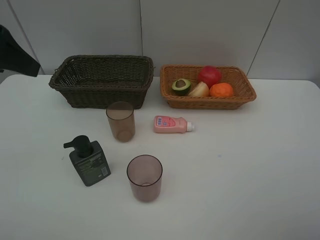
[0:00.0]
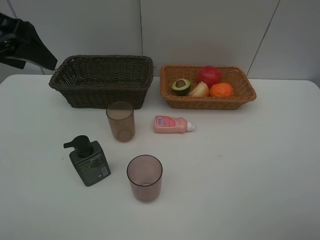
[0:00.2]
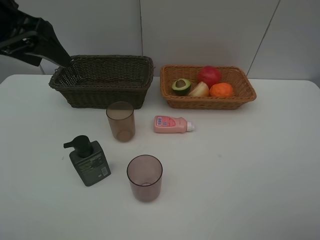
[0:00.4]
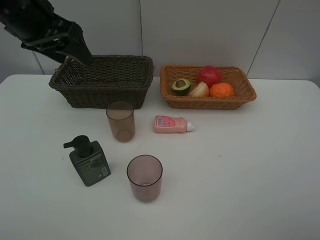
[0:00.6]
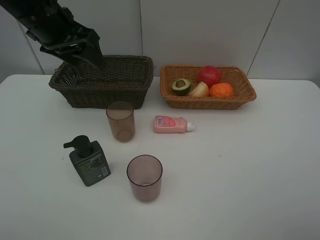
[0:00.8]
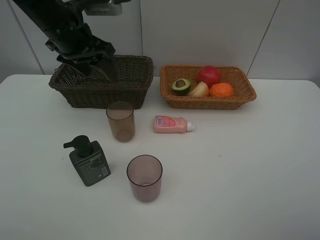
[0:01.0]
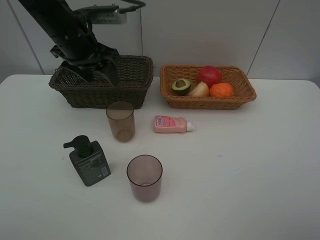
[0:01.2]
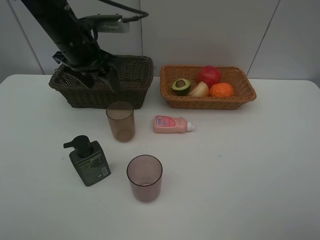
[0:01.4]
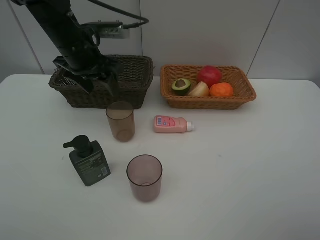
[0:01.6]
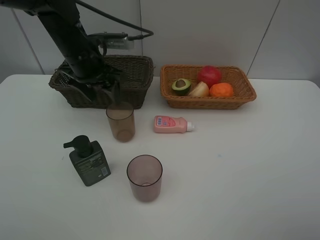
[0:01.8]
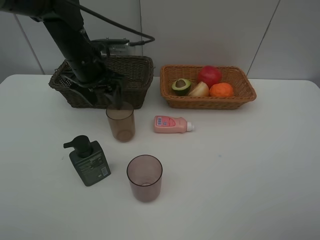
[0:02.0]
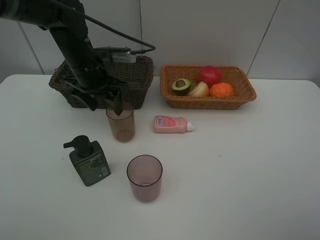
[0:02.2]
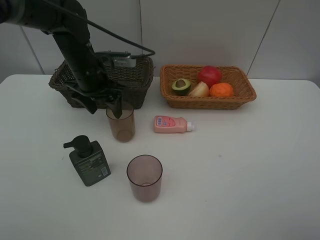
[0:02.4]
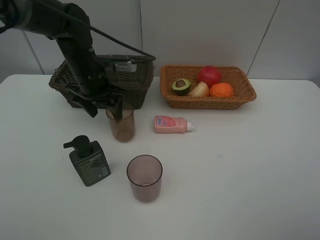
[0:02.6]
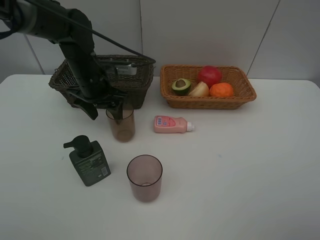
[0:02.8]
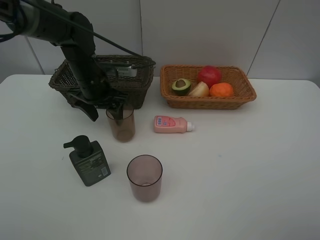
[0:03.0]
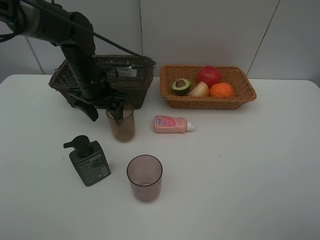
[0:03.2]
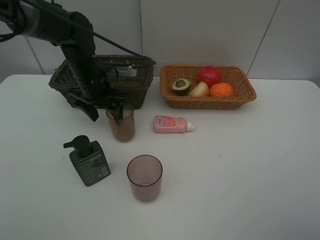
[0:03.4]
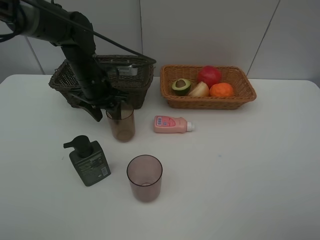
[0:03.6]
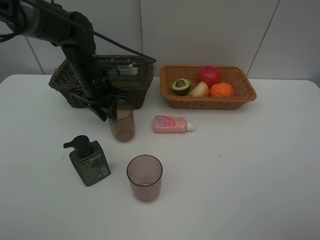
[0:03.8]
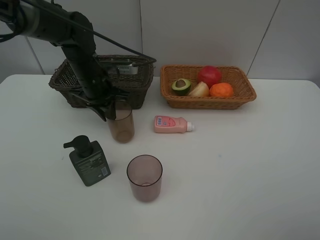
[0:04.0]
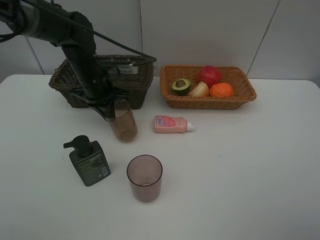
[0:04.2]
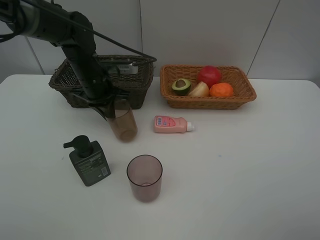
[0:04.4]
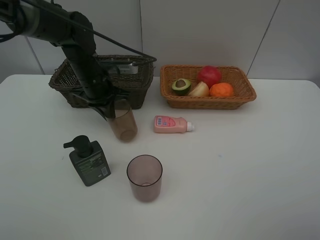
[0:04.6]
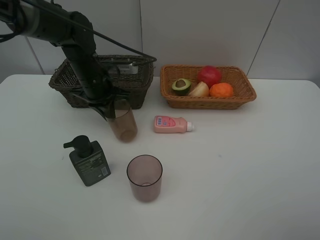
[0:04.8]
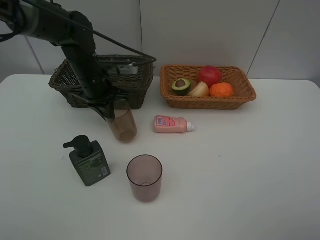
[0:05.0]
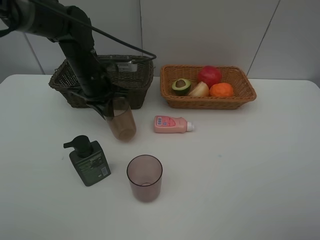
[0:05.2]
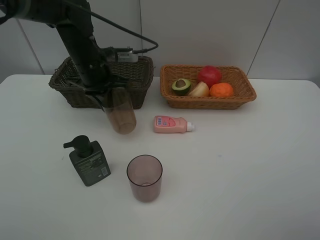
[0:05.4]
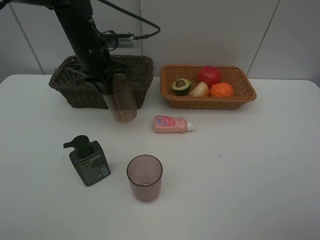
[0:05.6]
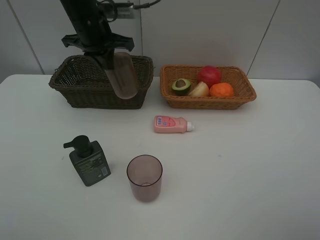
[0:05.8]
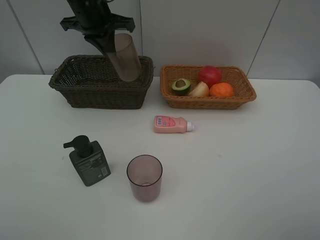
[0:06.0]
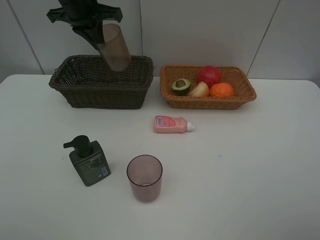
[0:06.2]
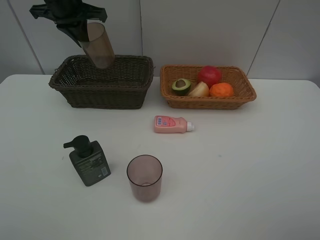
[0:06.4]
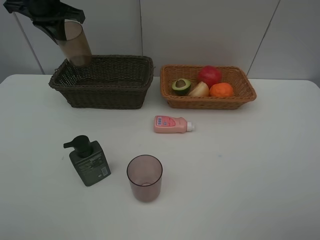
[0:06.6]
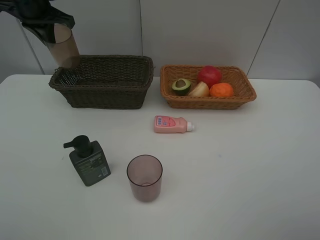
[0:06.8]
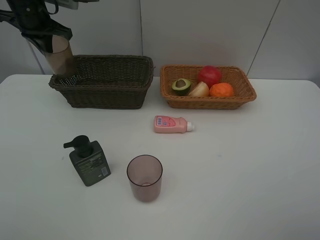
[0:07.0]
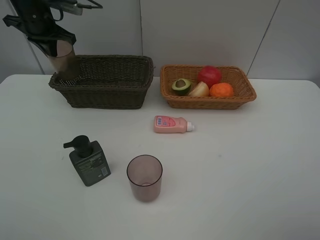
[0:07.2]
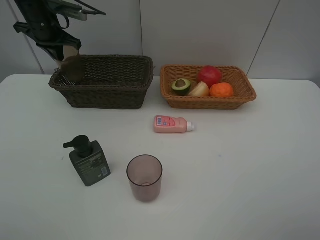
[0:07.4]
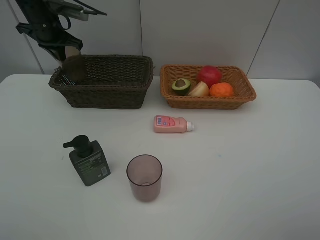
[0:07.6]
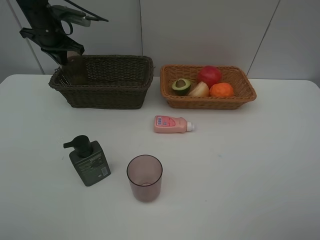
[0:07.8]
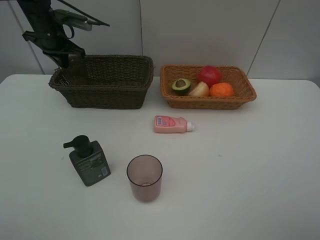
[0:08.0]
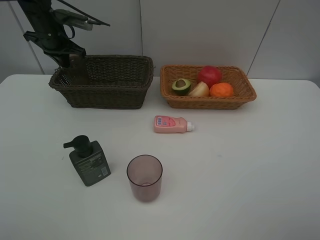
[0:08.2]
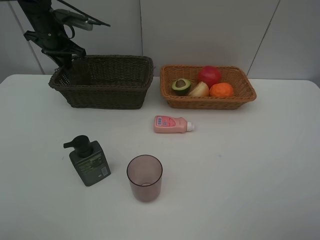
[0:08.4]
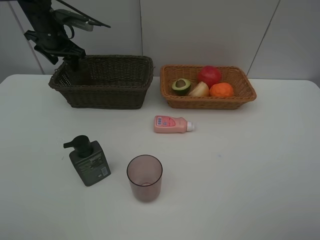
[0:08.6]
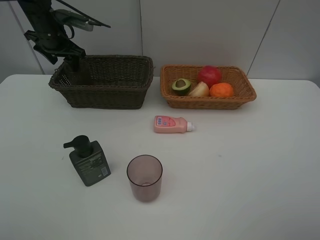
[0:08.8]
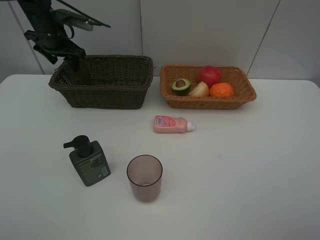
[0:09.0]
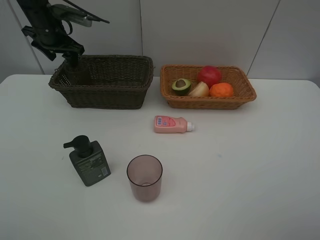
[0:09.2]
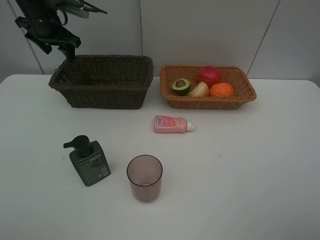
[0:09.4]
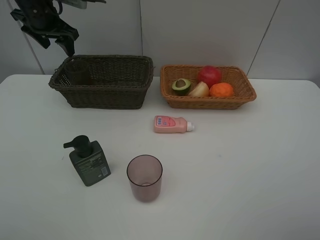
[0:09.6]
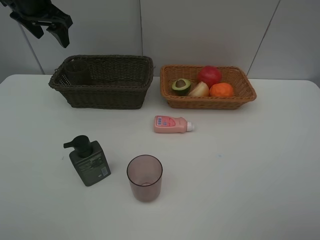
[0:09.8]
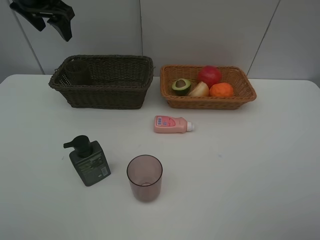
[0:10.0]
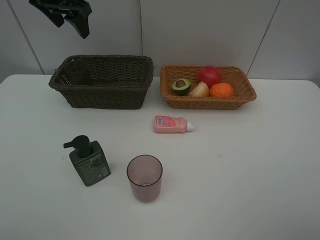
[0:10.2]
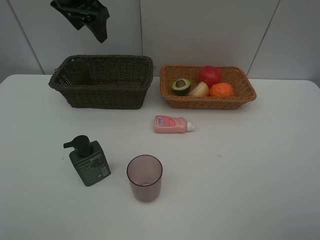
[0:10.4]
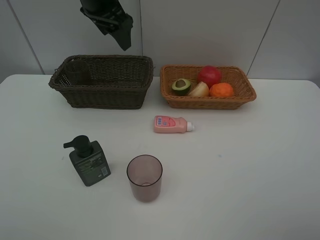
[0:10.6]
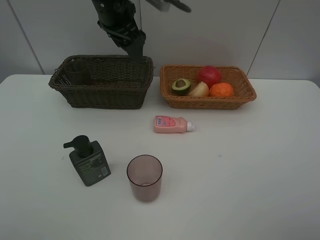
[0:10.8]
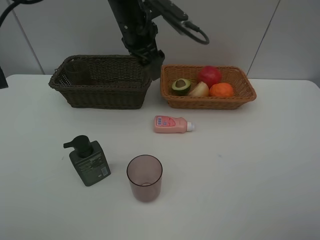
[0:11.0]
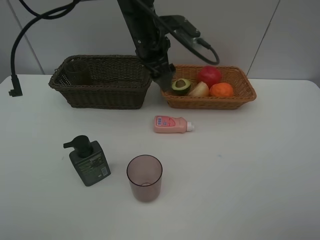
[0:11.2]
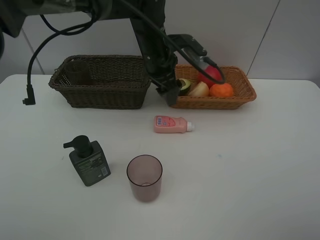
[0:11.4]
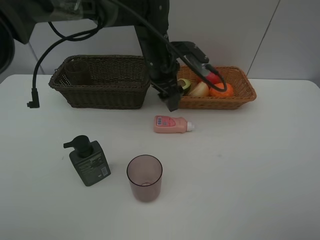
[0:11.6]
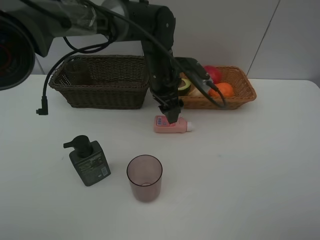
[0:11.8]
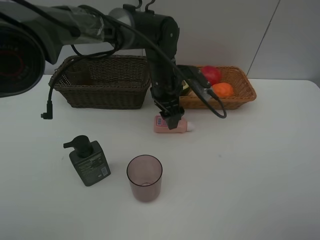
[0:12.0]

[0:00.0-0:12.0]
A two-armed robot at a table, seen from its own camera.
Task of the whole recording: Place multiple objects separately in different baskets.
Step, 0:00.0 to 0:05.6: Pick up the light brown cup with left gripper.
Step, 0:05.8 to 0:09.2: Place the light brown cup in the dark basket with left gripper.
0:00.0 to 0:01.6: The left gripper goes about 20 cm forward, downward and to the right.
0:01.6 to 0:03.0: The left gripper is displaced downward by roughly 10 cm.
0:03.0 to 0:04.4: The left gripper closes its fingers.
0:04.4 to 0:06.0: The left gripper shifts some 15 cm upward.
0:06.0 to 0:07.6: The left gripper travels to the left, forward and downward by approximately 15 cm.
0:07.6 to 0:09.0: The left gripper opens up.
0:09.0 to 0:10.4: The left gripper moves upward, to the right and backward, roughly 20 cm.
0:10.4 to 0:12.0: The left gripper travels downward and to the right by approximately 25 cm.

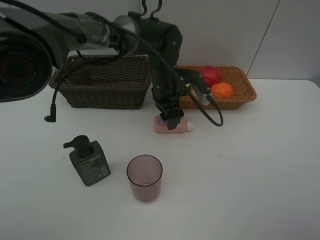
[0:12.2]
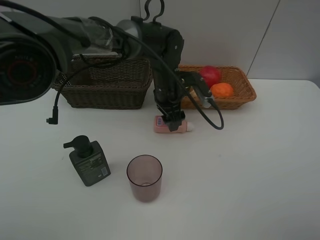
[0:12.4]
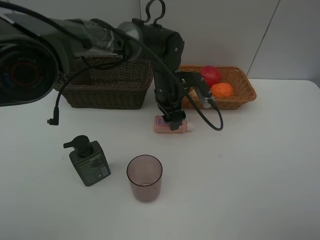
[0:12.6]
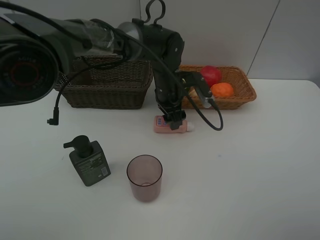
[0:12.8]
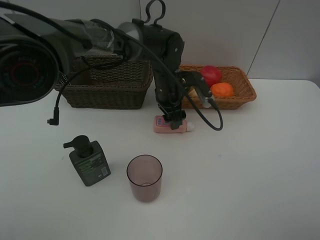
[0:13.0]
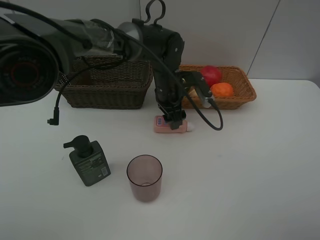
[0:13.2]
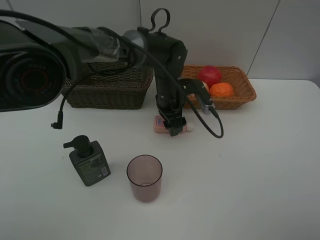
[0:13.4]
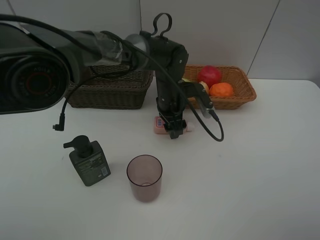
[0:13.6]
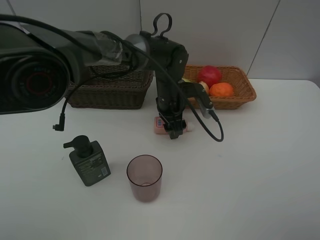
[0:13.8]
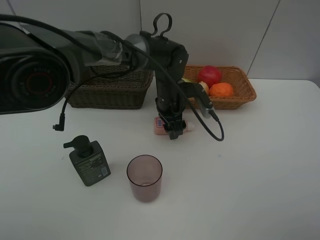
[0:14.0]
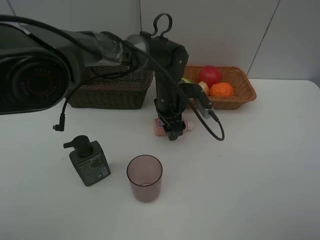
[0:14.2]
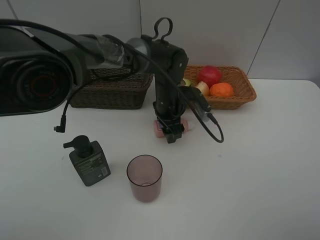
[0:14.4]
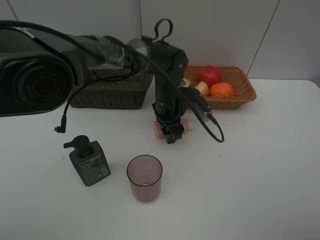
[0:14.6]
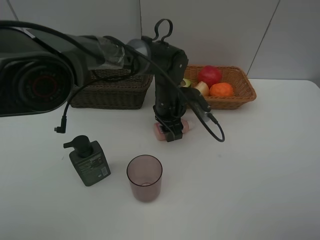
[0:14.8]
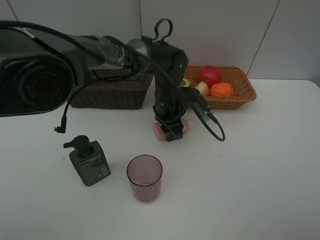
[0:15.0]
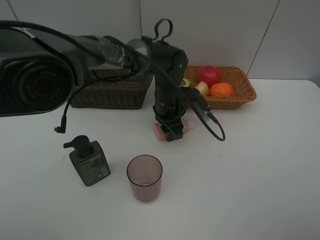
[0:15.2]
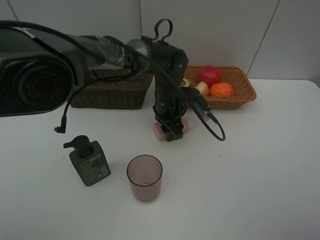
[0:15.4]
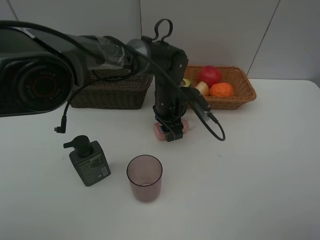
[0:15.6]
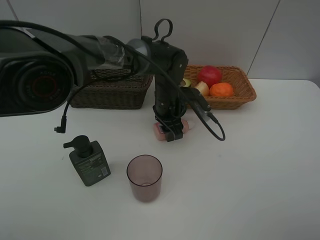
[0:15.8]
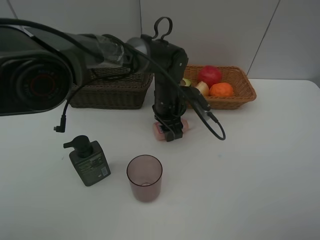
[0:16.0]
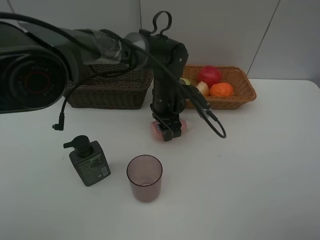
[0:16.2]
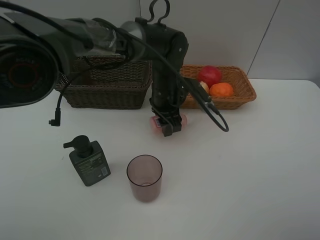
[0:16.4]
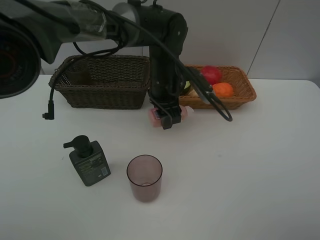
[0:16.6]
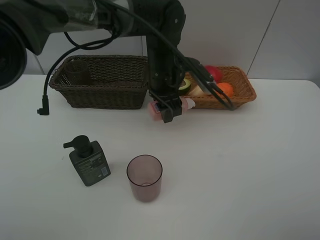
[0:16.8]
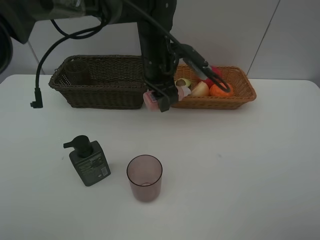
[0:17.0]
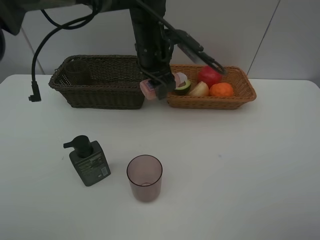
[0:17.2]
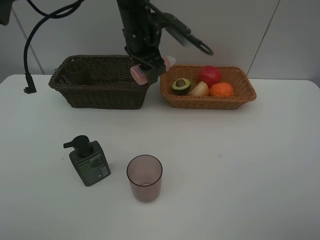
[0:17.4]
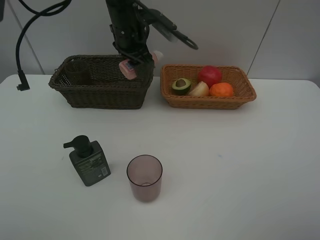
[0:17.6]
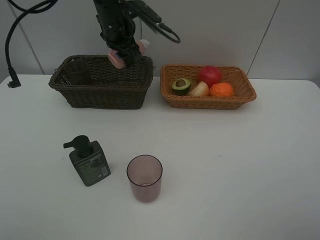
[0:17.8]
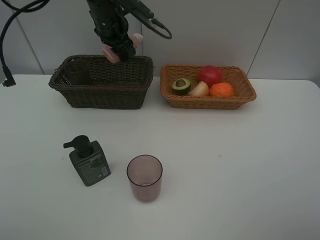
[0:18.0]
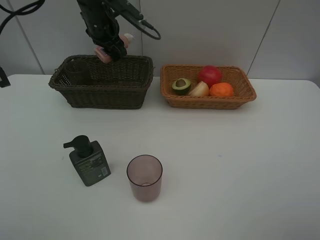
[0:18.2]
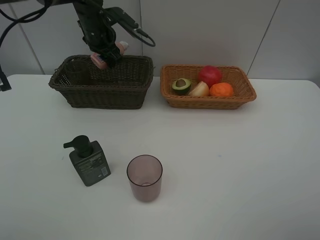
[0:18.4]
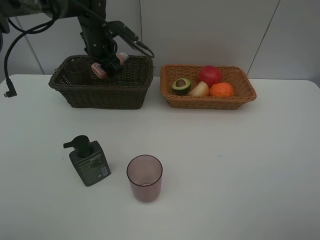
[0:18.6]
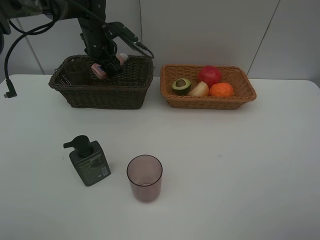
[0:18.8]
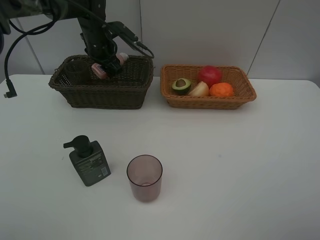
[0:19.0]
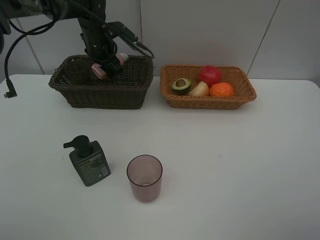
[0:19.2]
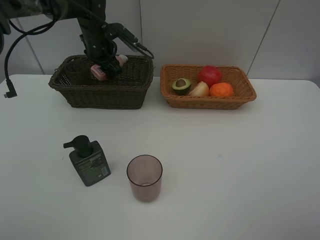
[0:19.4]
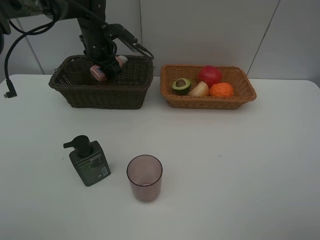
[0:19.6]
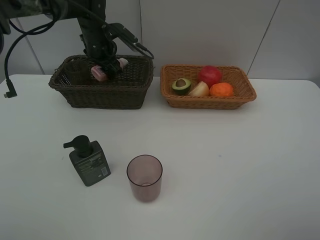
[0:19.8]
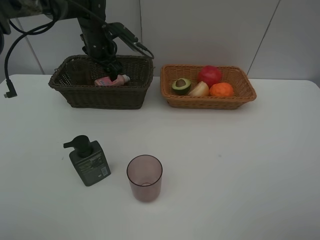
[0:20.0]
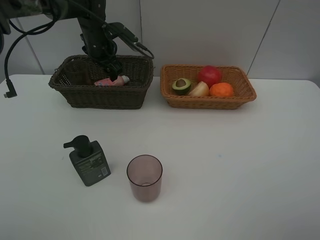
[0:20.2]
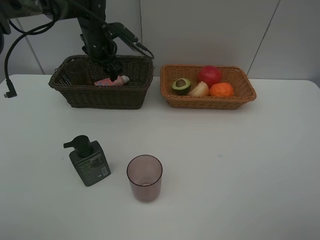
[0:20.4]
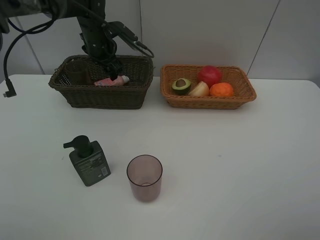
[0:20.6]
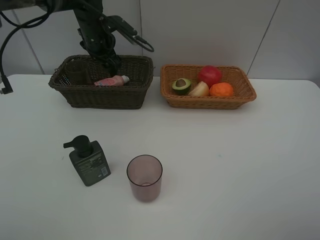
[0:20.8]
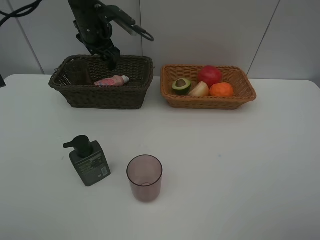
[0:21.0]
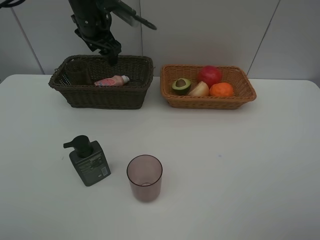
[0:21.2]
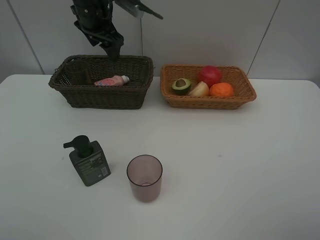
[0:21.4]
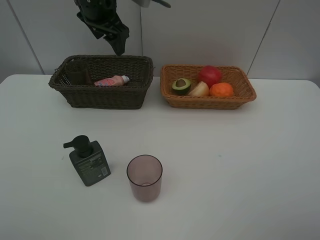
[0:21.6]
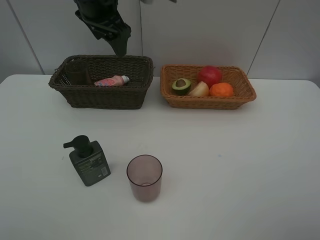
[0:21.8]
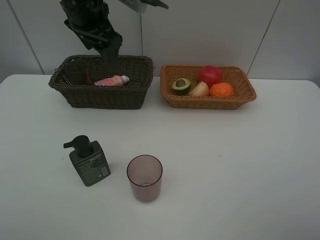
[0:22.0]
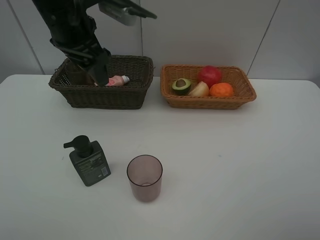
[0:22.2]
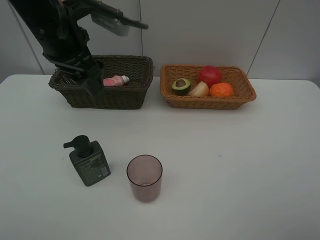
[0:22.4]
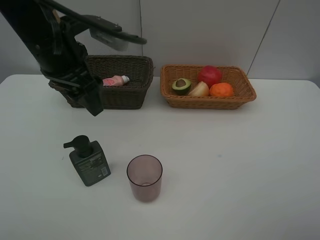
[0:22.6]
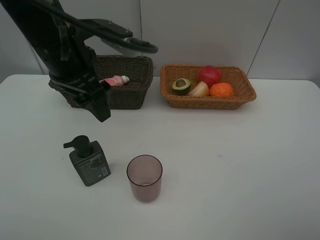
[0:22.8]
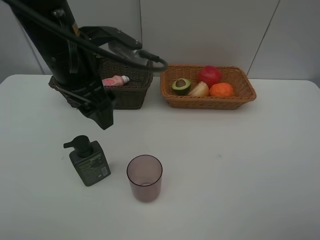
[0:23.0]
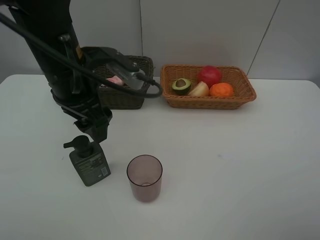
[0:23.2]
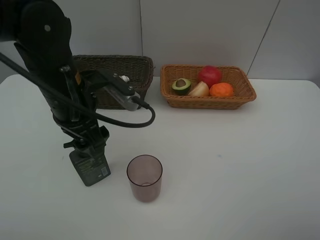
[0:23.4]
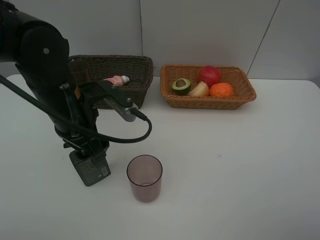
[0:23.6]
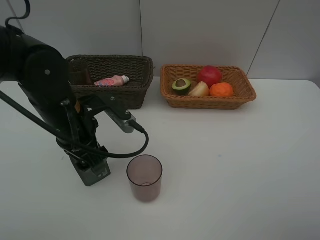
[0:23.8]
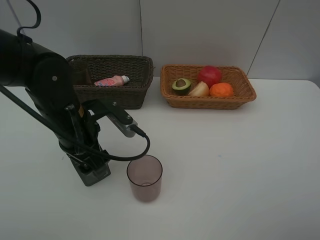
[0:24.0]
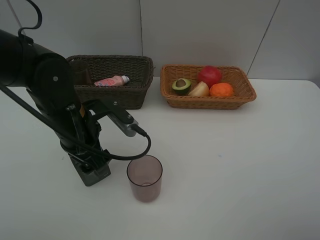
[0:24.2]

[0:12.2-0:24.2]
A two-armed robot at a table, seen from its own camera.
Task of the whole recording: Place multiple objects separately in different baskets.
Step, 0:12.2 to 0:16.8: Pick up the laundry detergent with left gripper.
Step, 0:17.0 to 0:20.8: Place the laundry detergent in the dark basket with left gripper.
0:12.2 to 0:15.2: There are only small adjustments of the grippers.
0:15.2 to 0:16.6: The left gripper heads upward, covering roughly 5 cm.
0:16.6 to 0:18.2: The left gripper shifts roughly 20 cm to the left, forward and upward.
0:18.2 to 0:19.8: The left gripper shifts by roughly 5 cm.
0:19.8 to 0:21.2: The left gripper travels upward by approximately 5 cm.
0:21.2 to 0:22.6: The left gripper travels backward by roughly 20 cm.
0:22.6 to 0:24.2: The left gripper shifts approximately 10 cm downward.
